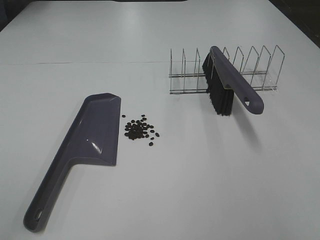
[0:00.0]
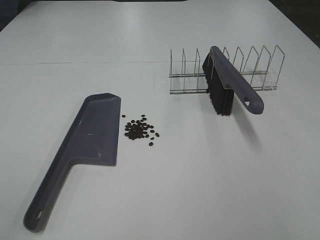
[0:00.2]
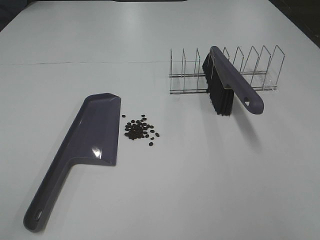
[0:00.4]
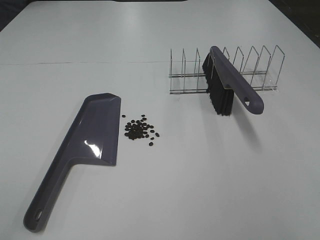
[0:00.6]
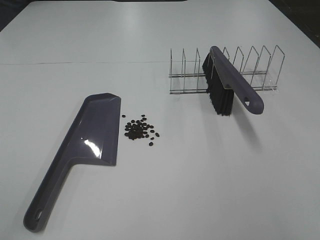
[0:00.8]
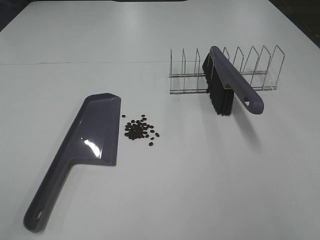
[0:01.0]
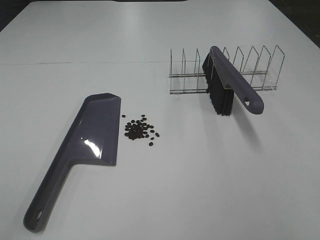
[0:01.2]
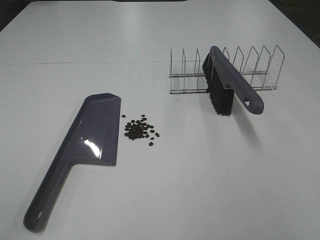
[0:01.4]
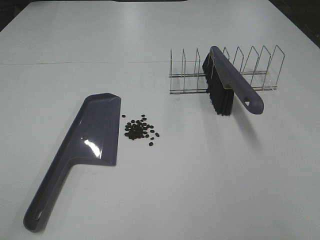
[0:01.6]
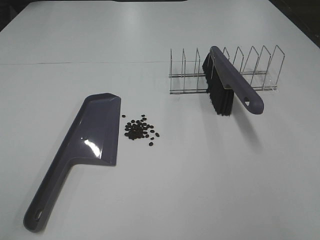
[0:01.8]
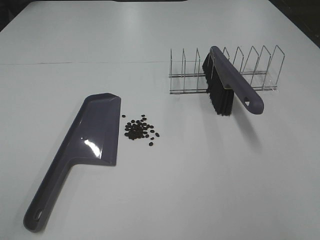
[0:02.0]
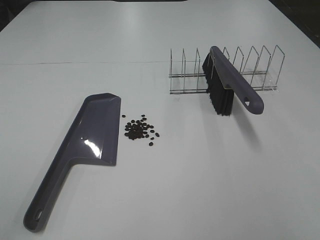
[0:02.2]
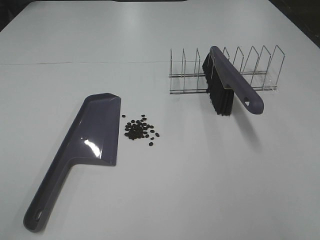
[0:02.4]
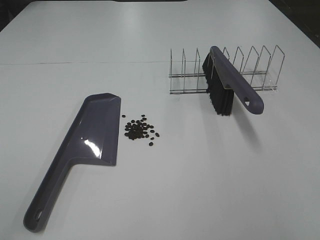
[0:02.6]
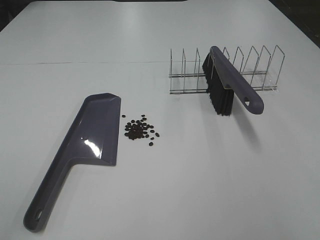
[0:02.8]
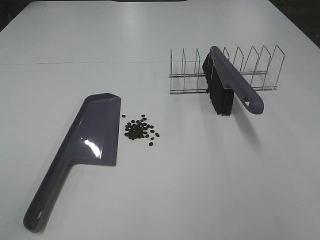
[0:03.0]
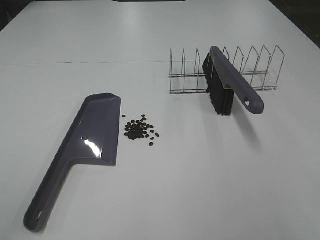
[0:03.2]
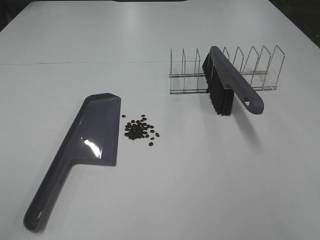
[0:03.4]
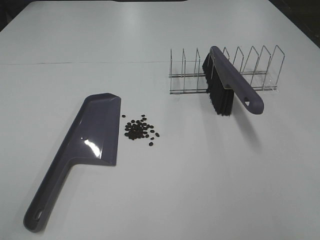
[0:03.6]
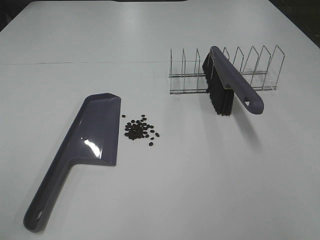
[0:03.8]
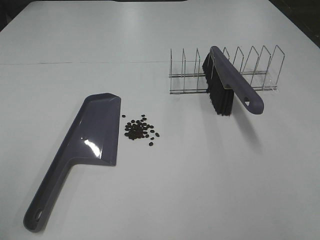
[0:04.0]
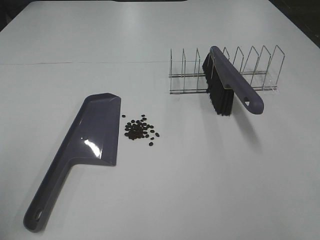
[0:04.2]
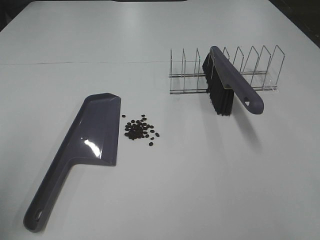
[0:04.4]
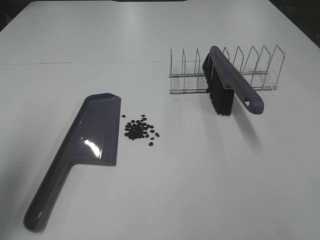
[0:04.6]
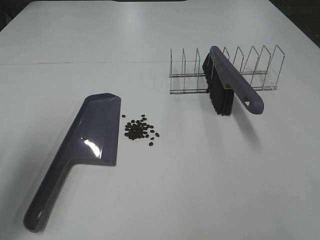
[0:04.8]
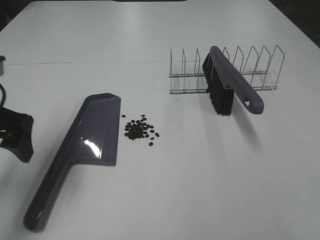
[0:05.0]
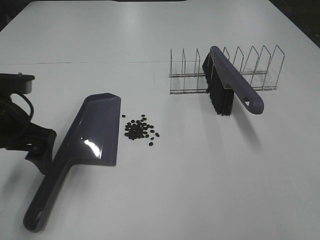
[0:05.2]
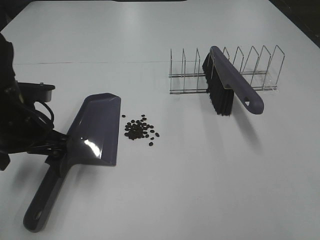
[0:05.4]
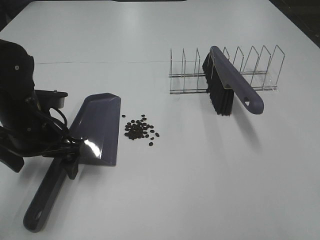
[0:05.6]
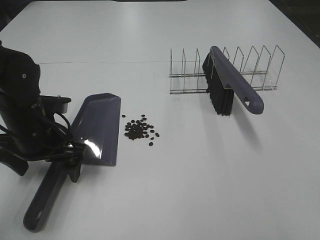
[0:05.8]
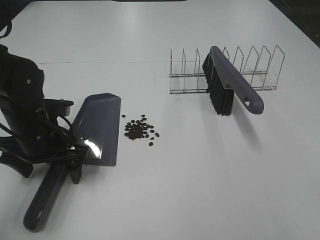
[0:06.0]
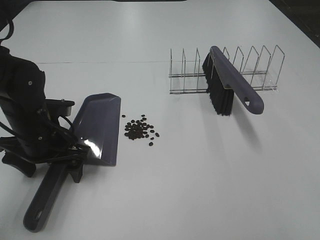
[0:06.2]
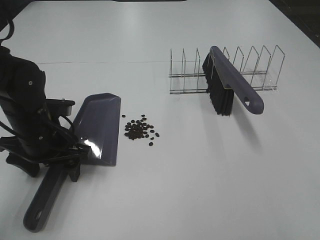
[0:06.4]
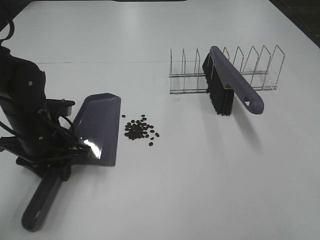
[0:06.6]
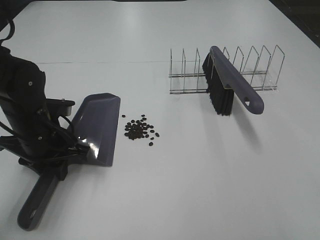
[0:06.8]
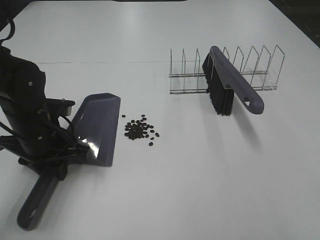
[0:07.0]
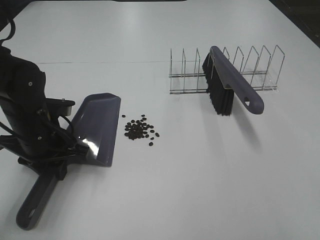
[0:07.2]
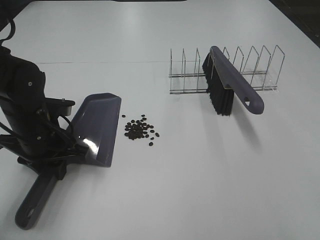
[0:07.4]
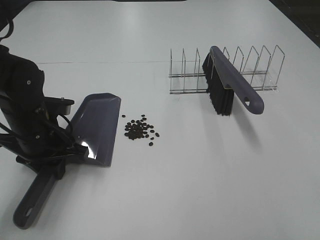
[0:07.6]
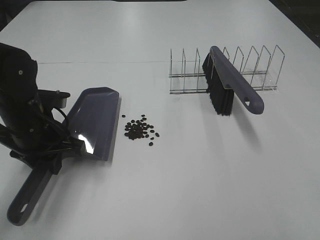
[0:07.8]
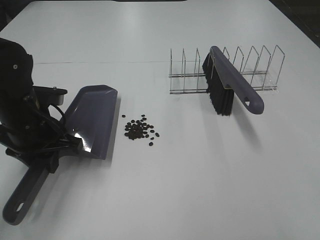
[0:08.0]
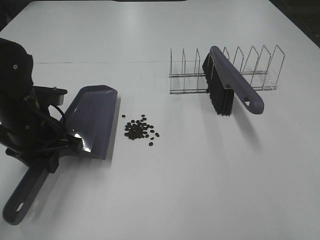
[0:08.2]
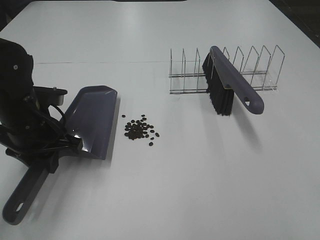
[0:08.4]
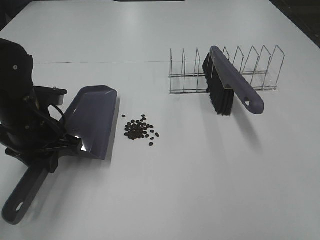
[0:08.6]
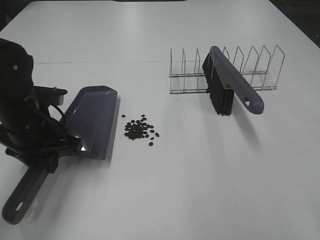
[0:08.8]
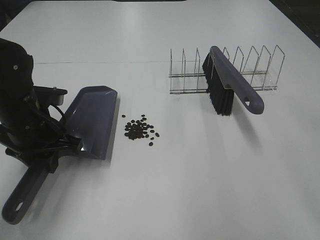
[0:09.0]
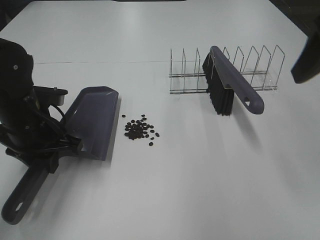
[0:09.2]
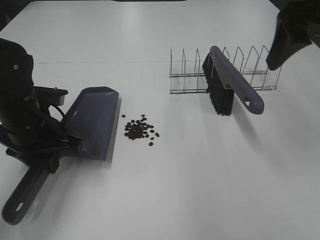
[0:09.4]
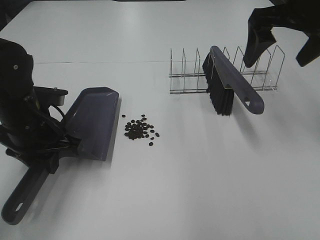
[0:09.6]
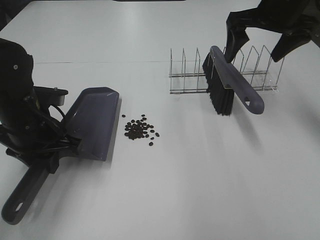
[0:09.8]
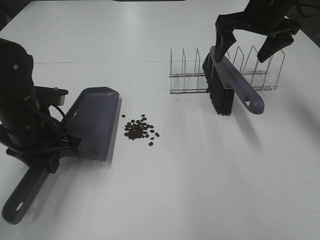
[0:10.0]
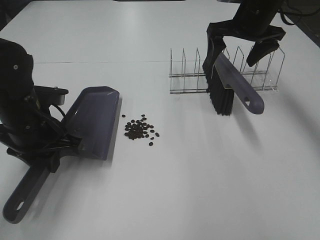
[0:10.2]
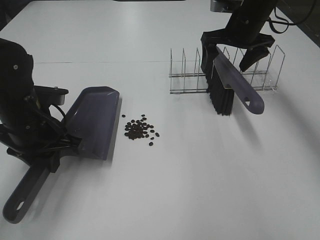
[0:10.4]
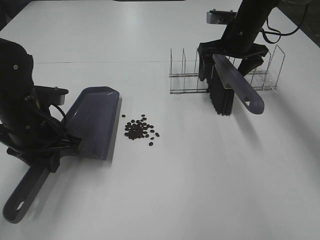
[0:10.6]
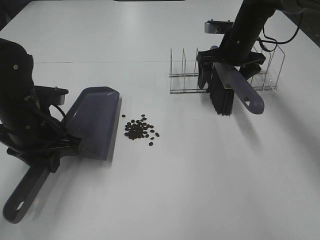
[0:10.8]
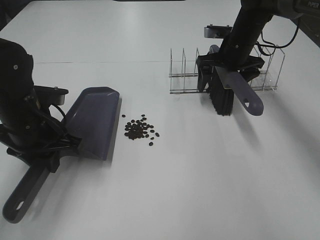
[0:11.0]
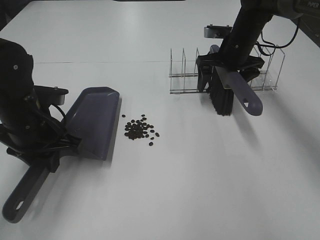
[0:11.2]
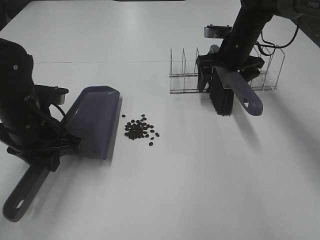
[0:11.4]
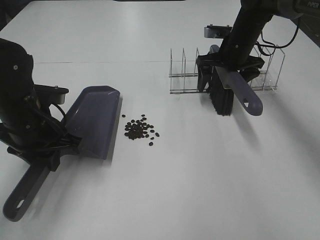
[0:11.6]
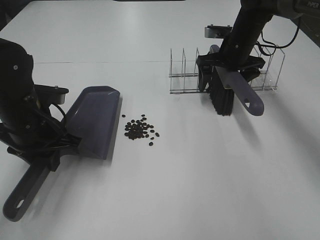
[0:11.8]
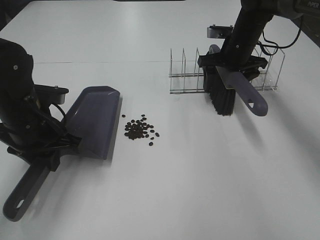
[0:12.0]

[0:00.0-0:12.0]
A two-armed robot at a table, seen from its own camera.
Task of the whole recording: Sweep Coffee Bean.
Step, 0:00.0 to 0:07.0: Left hand: grab the dustpan.
0:00.0 to 0:03.0: Both grippers stay about where they are.
0:03.0 to 0:04.4: The left gripper travels forward by some 15 cm.
0:04.4 to 0:06.0: The left gripper moves downward, forward and to the right, about 30 cm.
0:06.0 to 0:07.6: The left gripper closes up.
0:09.0 to 0:10.4: The right gripper heads forward and downward, covering about 35 cm.
0:10.4 to 0:12.0: The right gripper moves downward, roughly 5 cm.

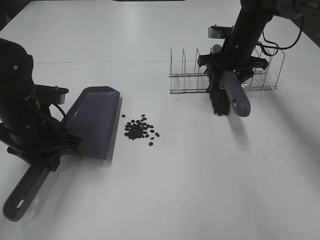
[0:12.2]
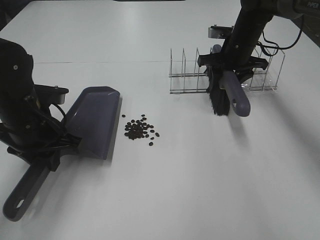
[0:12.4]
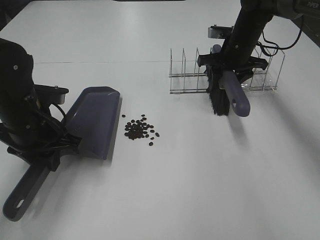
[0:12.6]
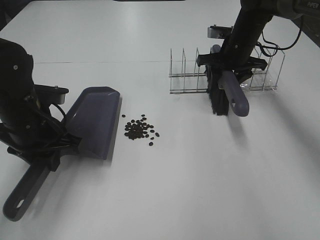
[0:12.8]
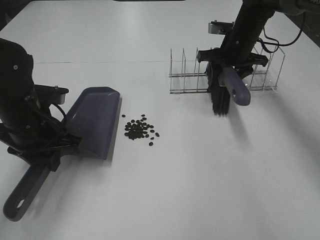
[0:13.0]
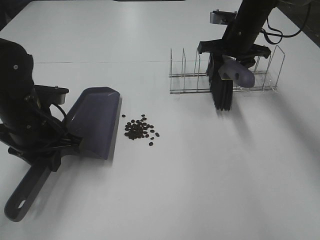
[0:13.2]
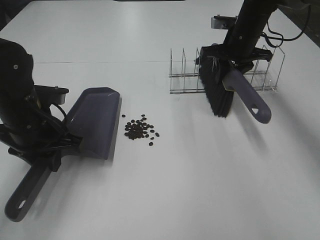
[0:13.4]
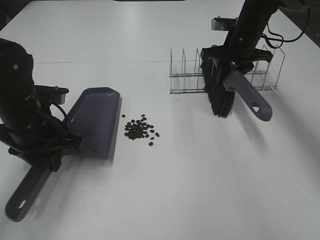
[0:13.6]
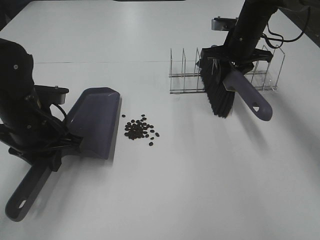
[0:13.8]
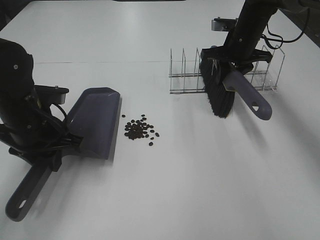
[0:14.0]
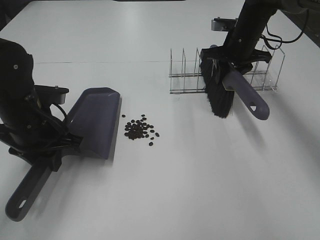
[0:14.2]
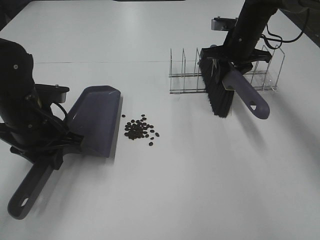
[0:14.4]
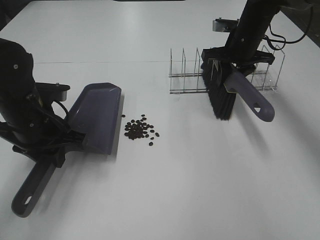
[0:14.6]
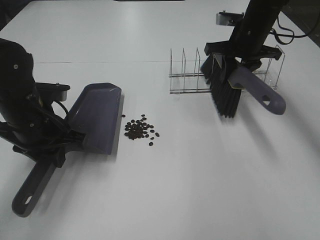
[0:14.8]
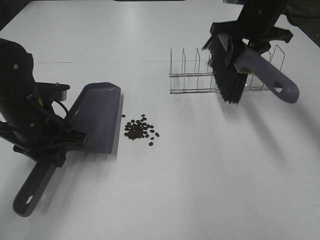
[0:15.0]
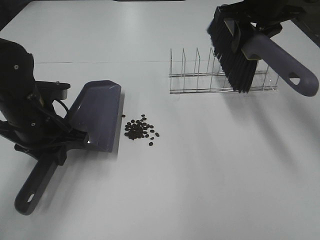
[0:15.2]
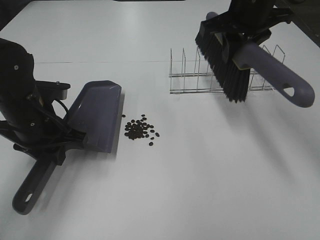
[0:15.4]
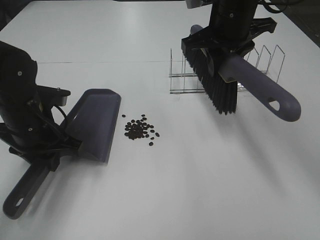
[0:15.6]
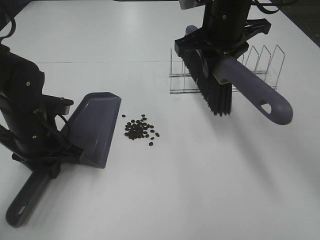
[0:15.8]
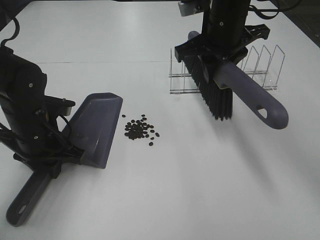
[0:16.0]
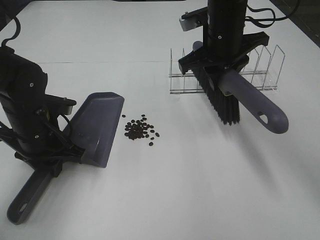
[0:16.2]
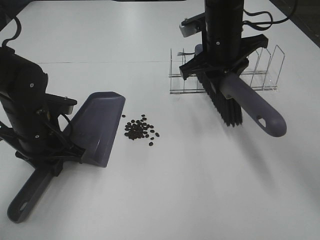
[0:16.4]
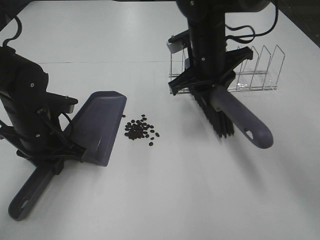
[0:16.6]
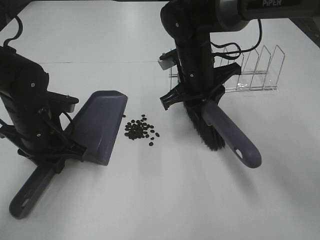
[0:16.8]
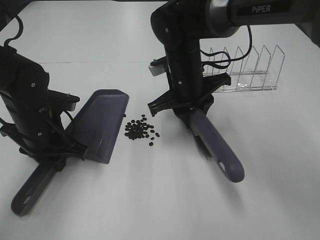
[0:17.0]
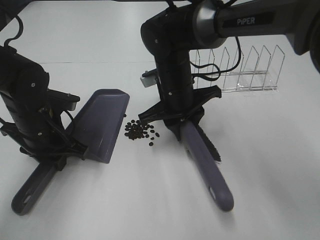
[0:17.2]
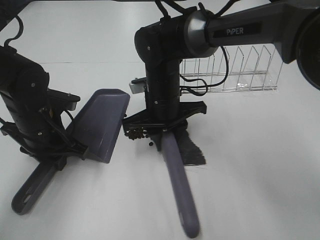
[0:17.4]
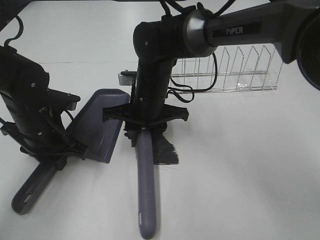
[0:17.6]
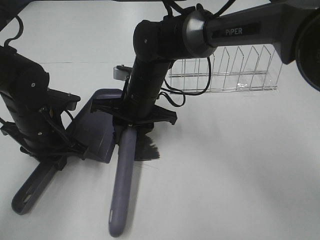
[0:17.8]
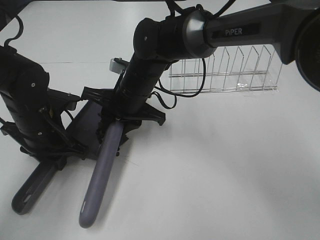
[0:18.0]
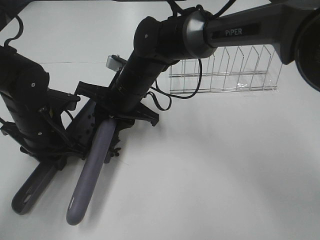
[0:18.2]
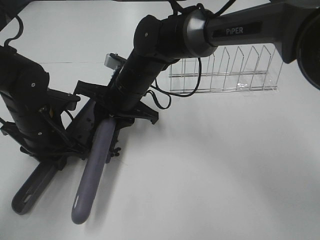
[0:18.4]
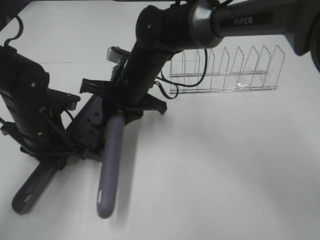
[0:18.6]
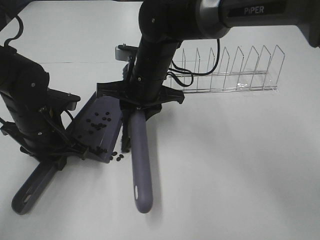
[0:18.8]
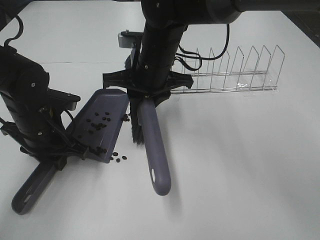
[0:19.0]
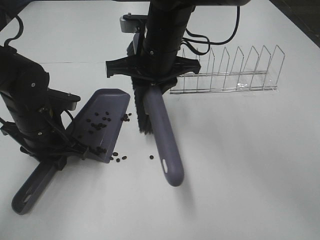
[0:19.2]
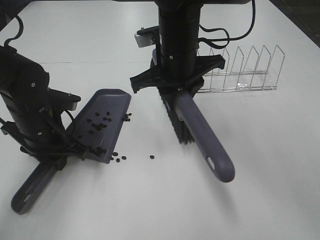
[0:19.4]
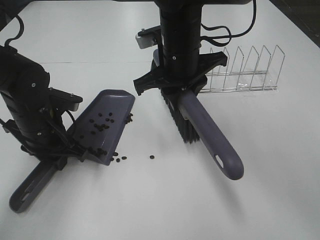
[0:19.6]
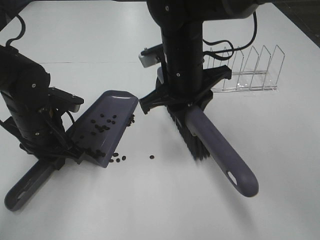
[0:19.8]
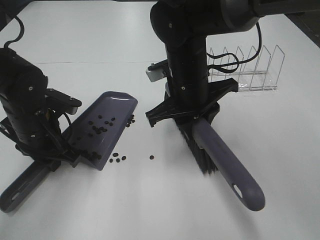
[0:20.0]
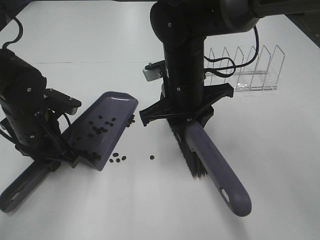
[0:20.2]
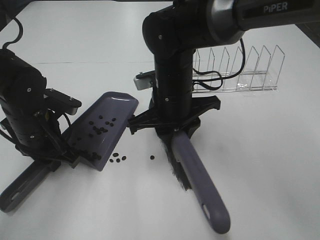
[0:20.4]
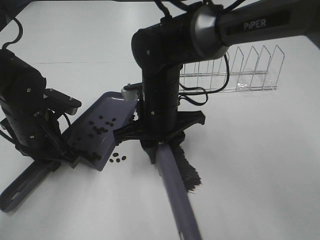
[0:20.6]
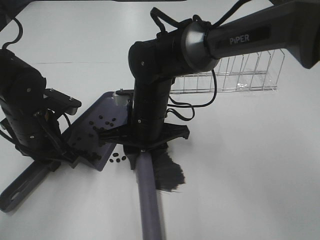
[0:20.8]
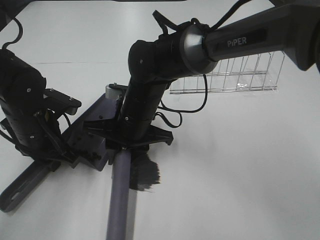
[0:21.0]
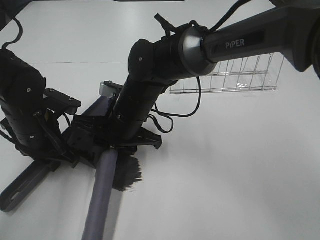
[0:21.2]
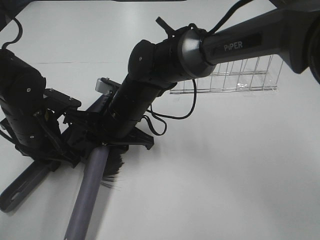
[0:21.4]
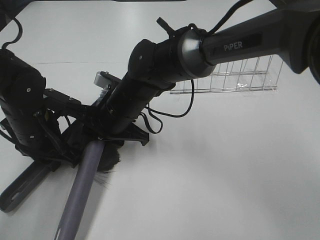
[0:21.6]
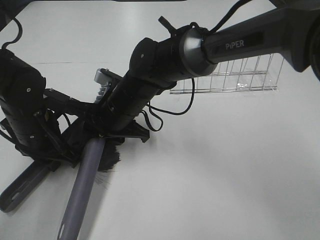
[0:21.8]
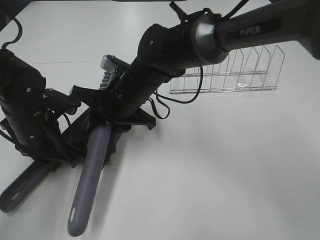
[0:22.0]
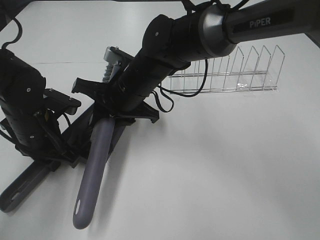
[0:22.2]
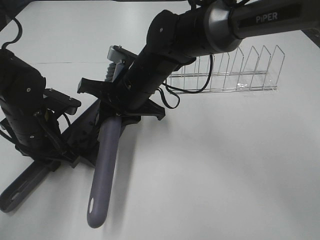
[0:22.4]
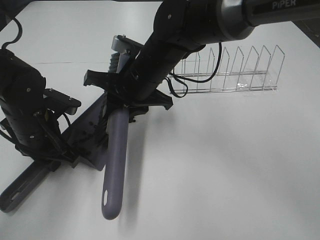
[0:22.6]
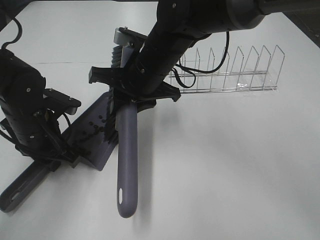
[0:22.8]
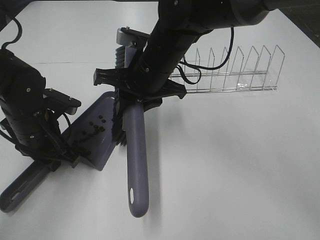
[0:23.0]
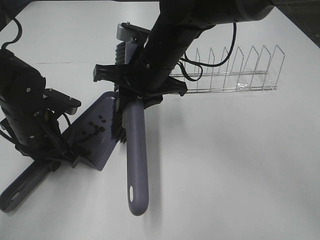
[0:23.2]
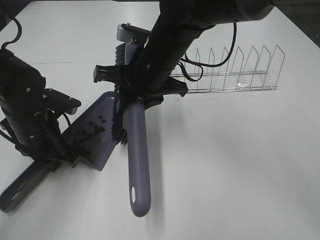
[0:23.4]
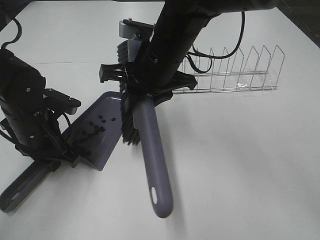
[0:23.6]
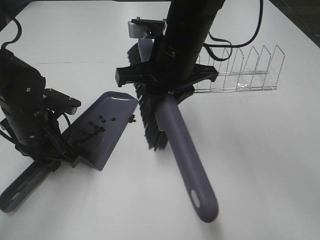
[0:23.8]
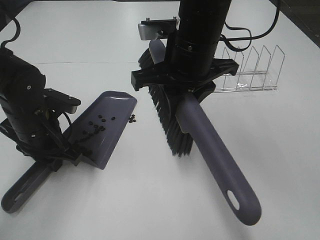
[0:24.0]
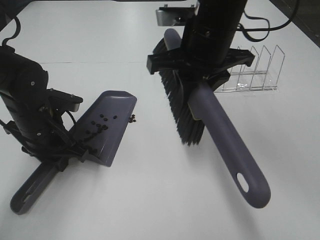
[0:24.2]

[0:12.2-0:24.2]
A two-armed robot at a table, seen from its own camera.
Task of the whole recording: Sweep Coffee Bean.
0:12.2 to 0:13.8: There are only small adjustments of the grippers.
0:13.8 to 0:15.2: The right gripper heads upward and backward, covering about 15 cm.
0:15.2 to 0:16.6: The right gripper shifts about 15 cm to the left and downward.
0:16.6 to 0:18.2: The right gripper shifts some 15 cm to the left and downward.
0:18.2 to 0:19.8: The right gripper is displaced to the right and upward by about 10 cm.
0:19.8 to 0:21.2: The right gripper is displaced to the left and downward by some 10 cm.
0:21.2 to 0:22.6: The right gripper goes about 5 cm upward.
0:22.6 to 0:24.2: The right gripper goes about 10 cm upward and to the right.
